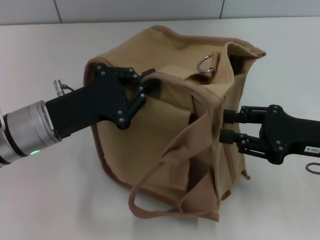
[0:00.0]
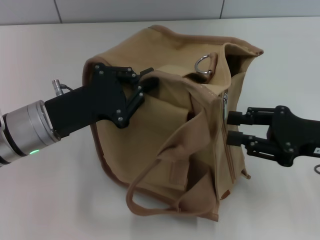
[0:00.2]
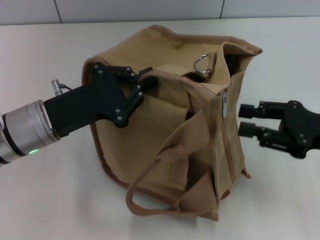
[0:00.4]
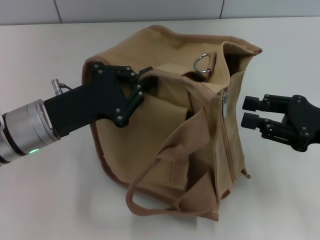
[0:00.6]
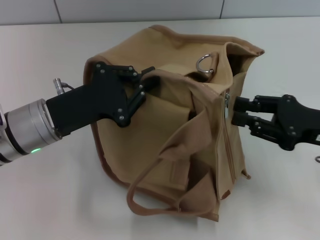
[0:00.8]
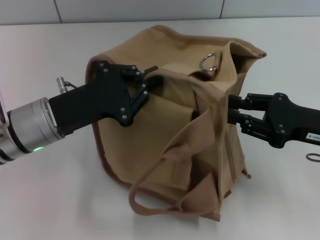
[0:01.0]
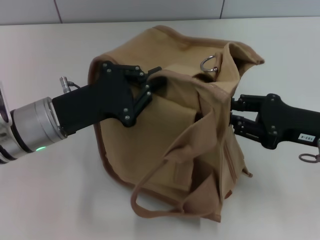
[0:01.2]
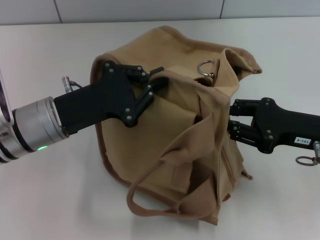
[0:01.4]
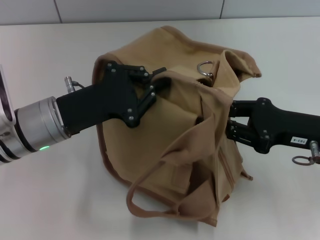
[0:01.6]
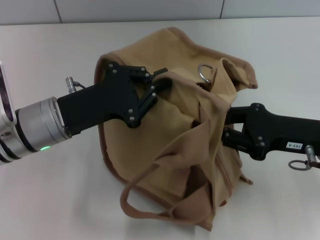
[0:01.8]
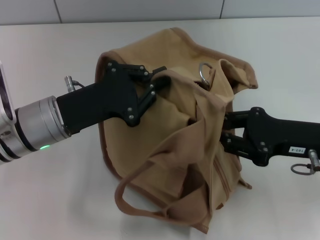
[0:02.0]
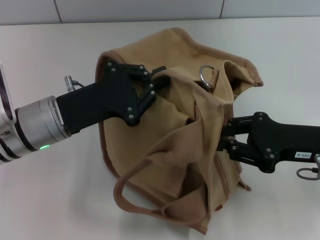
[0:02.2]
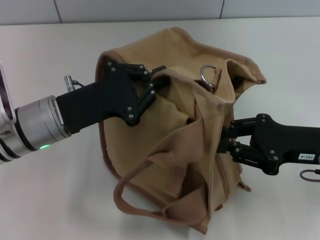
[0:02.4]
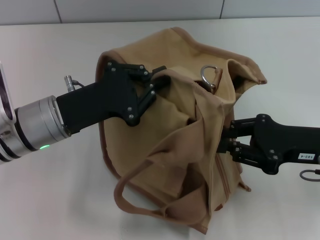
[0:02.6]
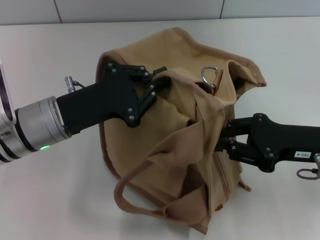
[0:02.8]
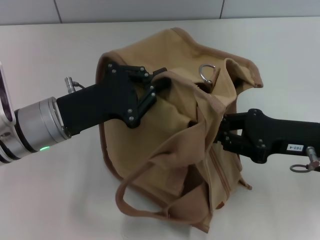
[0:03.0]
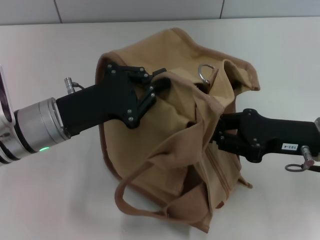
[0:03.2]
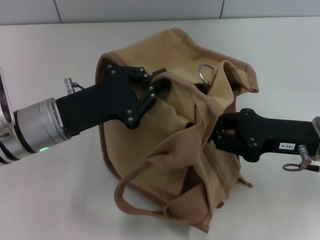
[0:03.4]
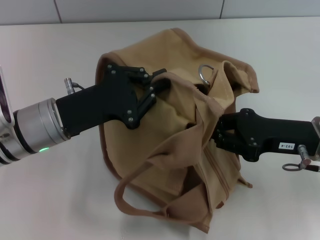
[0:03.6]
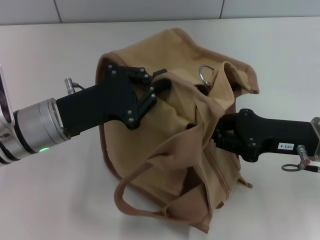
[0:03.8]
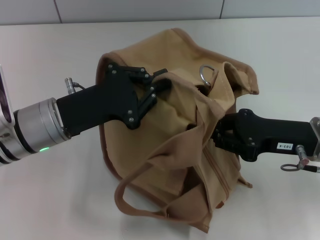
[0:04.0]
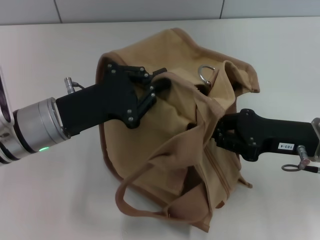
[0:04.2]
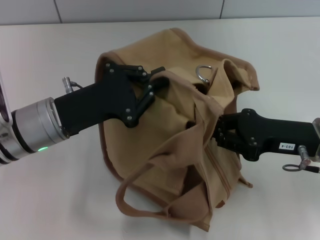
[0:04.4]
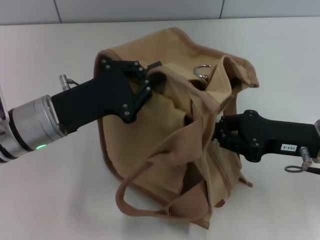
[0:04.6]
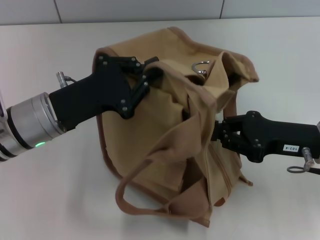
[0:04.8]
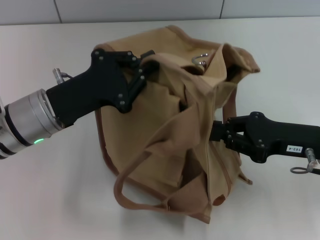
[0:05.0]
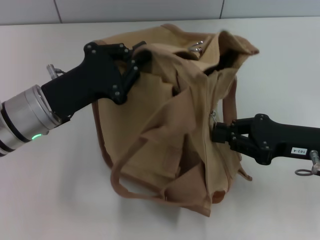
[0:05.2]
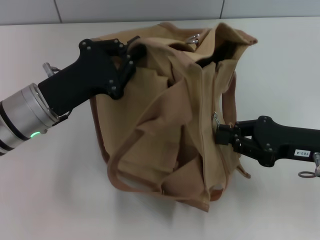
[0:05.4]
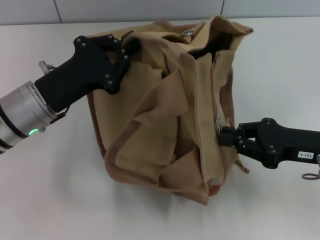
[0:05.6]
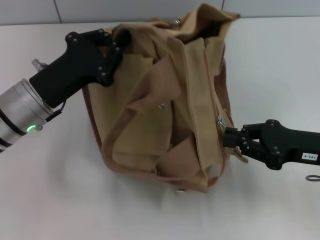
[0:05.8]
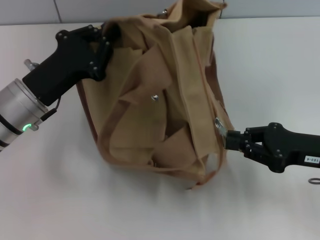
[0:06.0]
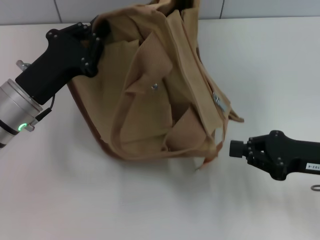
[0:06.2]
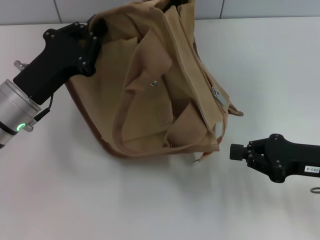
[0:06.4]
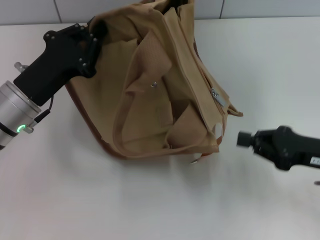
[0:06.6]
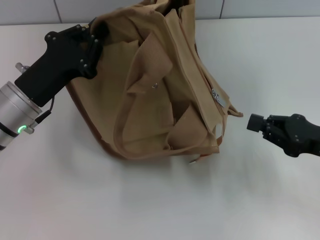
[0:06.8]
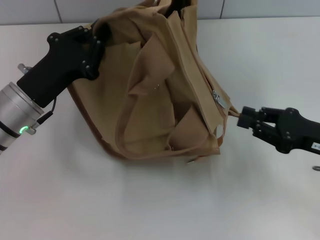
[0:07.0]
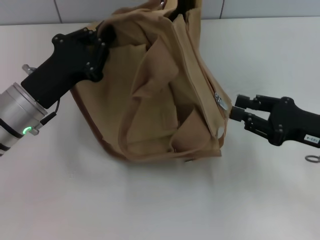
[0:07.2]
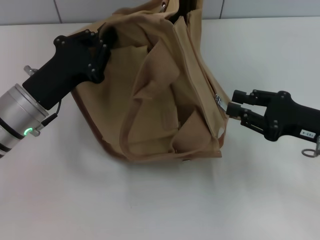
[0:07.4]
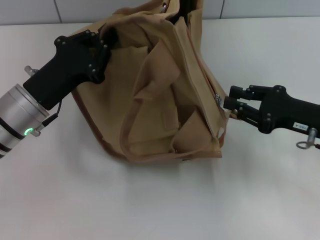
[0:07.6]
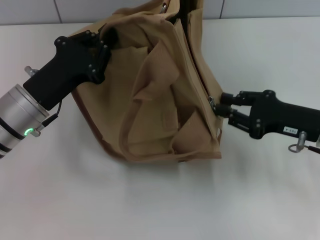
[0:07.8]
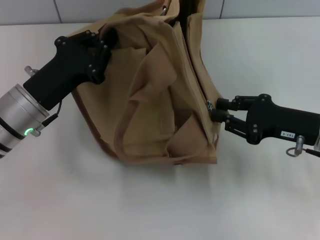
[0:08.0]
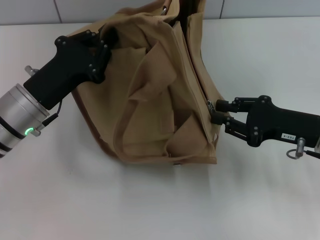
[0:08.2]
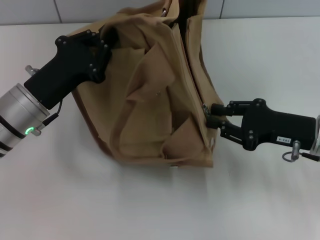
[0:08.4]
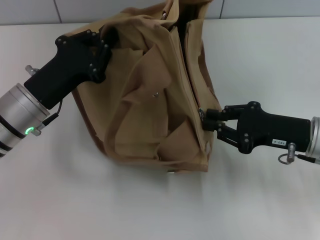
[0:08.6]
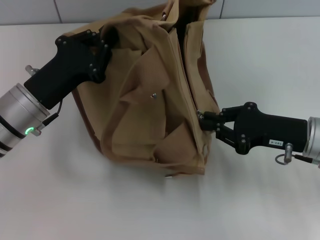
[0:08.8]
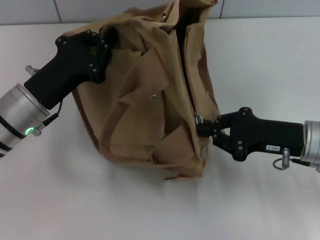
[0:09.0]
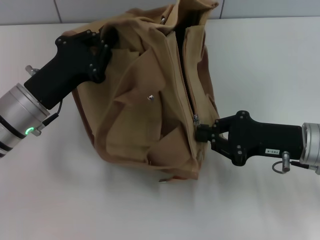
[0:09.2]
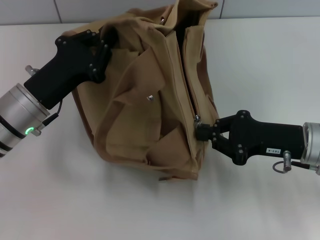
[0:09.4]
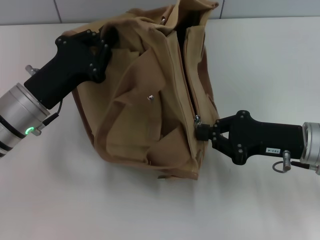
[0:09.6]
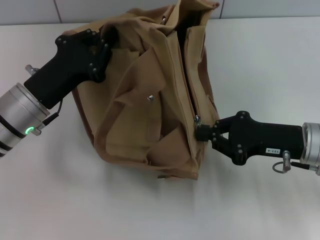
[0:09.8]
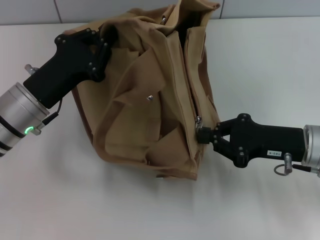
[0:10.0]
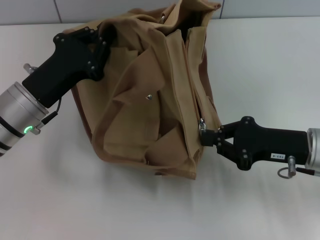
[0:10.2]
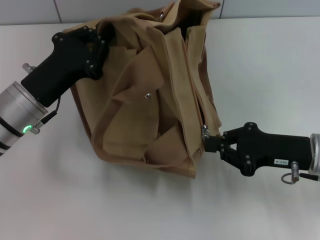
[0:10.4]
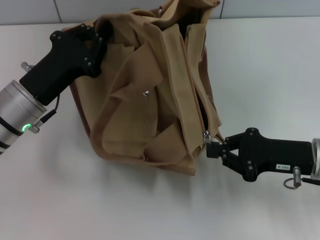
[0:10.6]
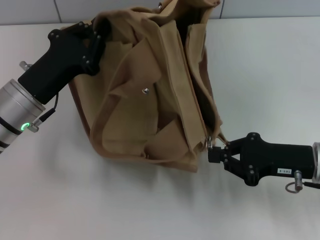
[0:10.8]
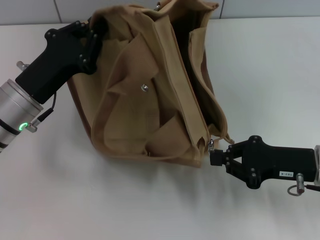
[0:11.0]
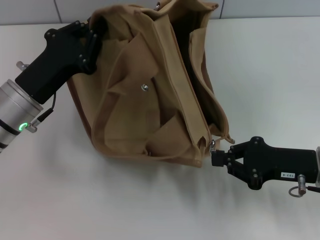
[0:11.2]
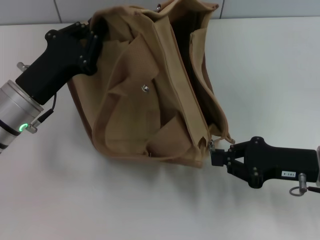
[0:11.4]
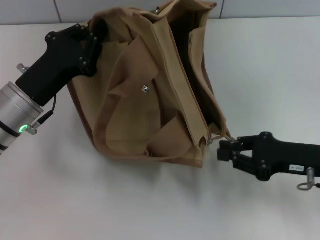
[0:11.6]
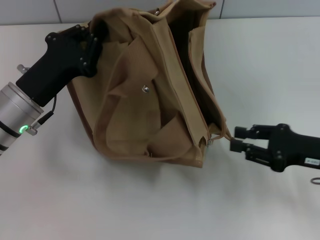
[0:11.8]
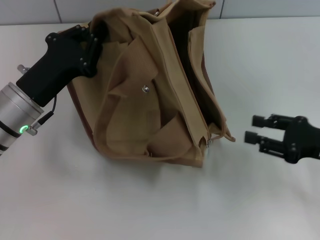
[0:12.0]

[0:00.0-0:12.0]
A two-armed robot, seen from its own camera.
Step, 0:00.0 to 0:11.6: Pull open the zipper with your right hand.
0:00.0 to 0:03.0: There are only small adjustments of the grippers.
0:03.0 to 0:04.4: The two grippers keep their place.
0:09.0 to 0:10.4: There are only small adjustments of the grippers.
0:10.4 to 0:12.0: The right gripper moves to the right, about 5 cm, and opens up.

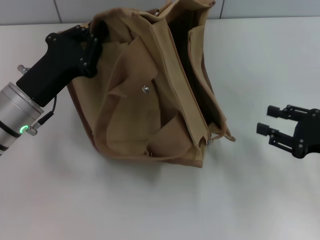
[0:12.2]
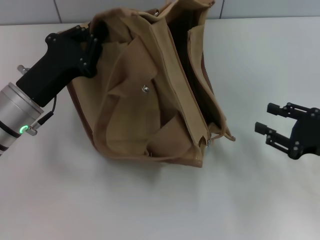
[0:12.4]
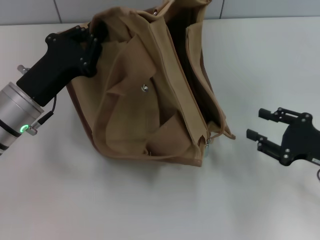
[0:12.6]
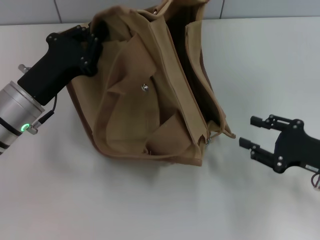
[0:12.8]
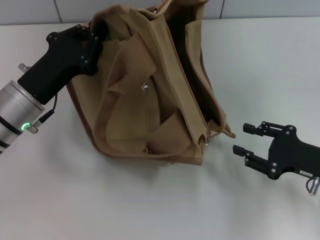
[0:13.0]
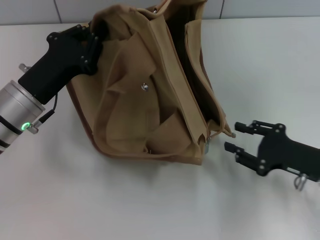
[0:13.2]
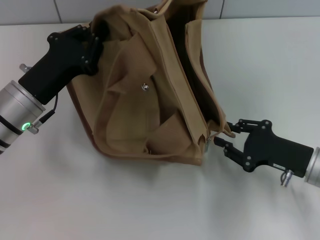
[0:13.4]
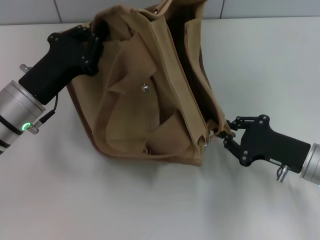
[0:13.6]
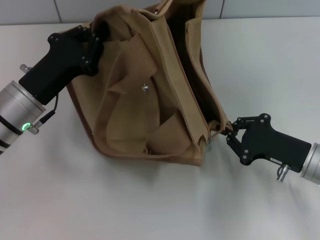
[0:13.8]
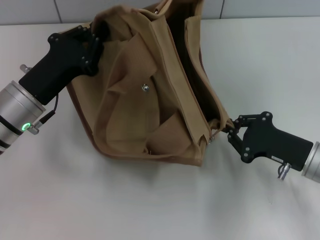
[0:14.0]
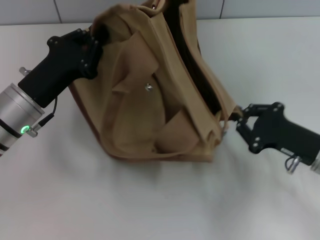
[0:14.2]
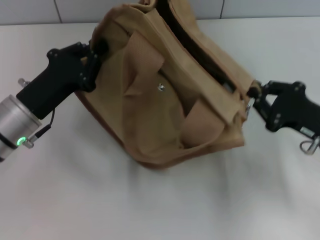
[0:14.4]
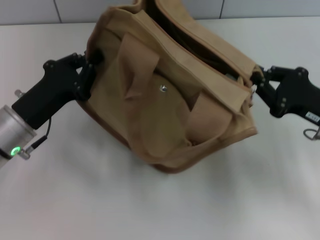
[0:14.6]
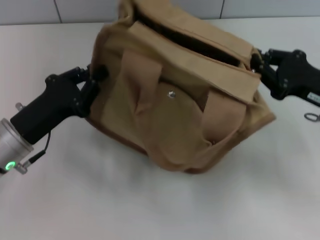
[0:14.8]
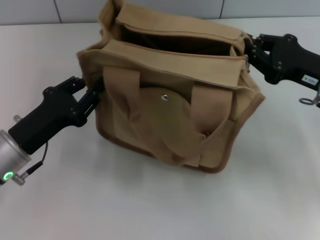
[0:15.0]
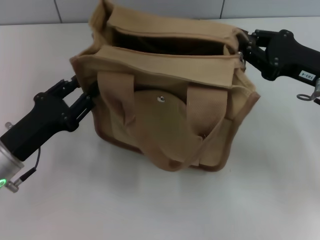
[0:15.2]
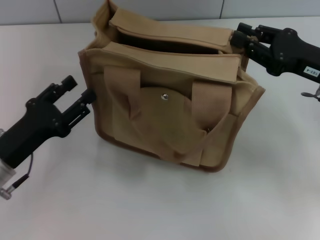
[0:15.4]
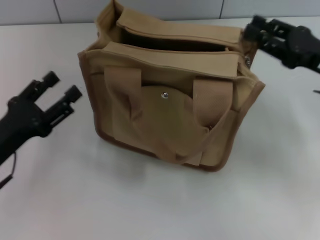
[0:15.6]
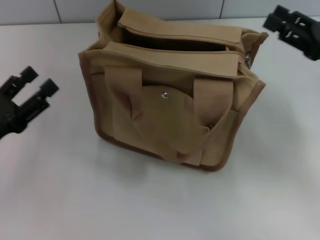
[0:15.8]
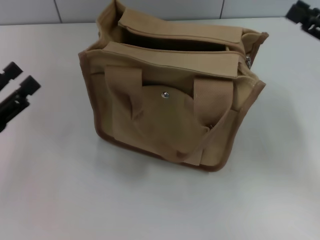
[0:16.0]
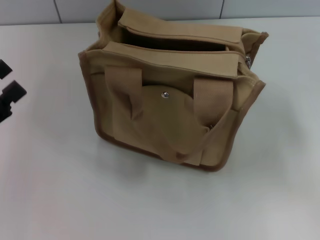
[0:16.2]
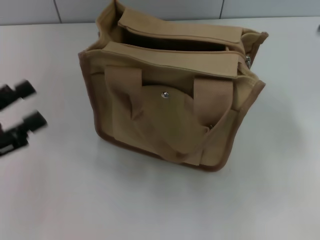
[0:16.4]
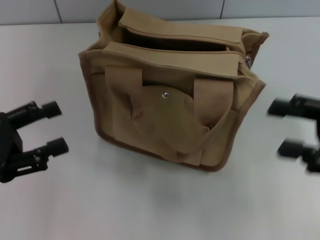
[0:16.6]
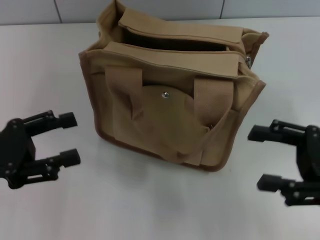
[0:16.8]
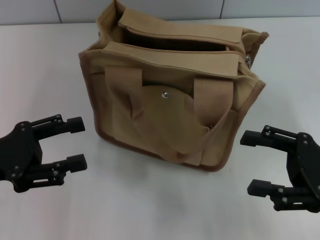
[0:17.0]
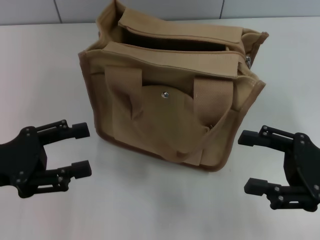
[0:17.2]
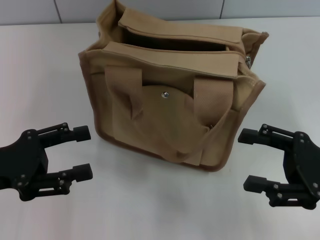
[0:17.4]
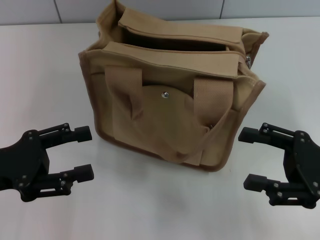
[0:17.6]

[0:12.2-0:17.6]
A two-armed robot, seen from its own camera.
Step, 0:12.2 to 0:15.4: Grab the bag with your left hand.
0:12.2 to 0:13.6: The right gripper moves to the left, roughly 5 cm.
0:13.6 to 0:15.0: The right gripper travels upward and forward by roughly 10 cm, and closes, while the left gripper is displaced backward by approximately 5 cm.
0:15.0 to 0:16.2: The left gripper heads to the left, covering roughly 10 cm, and opens. The right gripper goes approximately 5 cm to the right, and opens its fingers.
0:16.2 to 0:17.6: The right gripper travels backward, to the left and downward by about 10 cm.

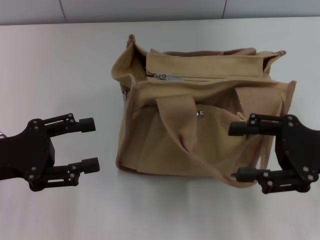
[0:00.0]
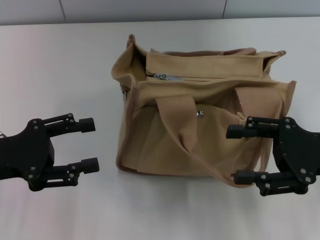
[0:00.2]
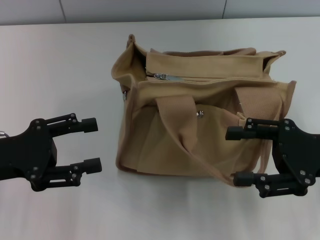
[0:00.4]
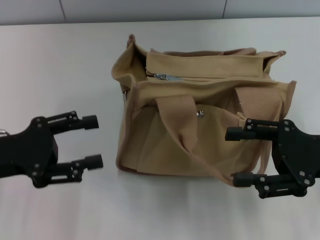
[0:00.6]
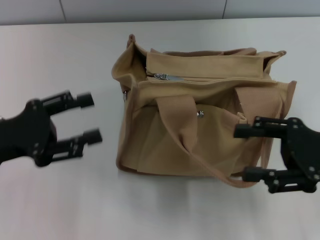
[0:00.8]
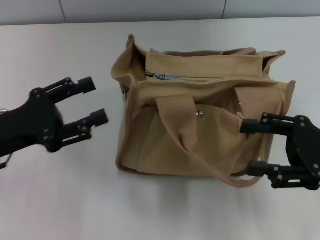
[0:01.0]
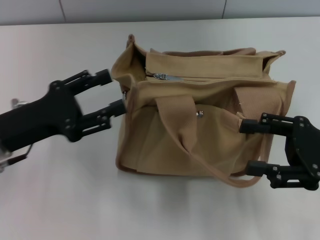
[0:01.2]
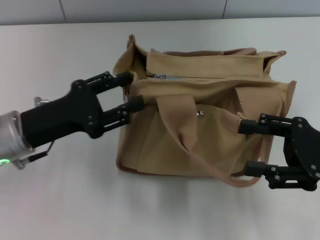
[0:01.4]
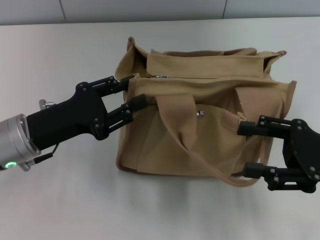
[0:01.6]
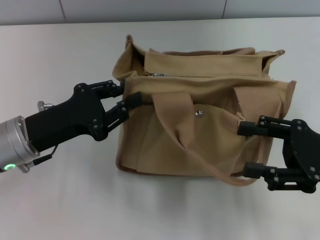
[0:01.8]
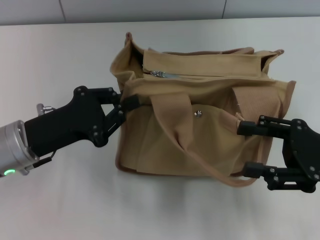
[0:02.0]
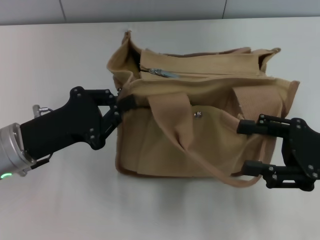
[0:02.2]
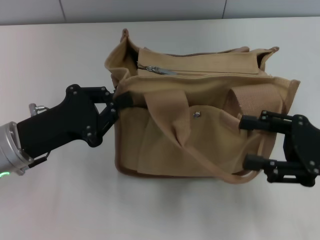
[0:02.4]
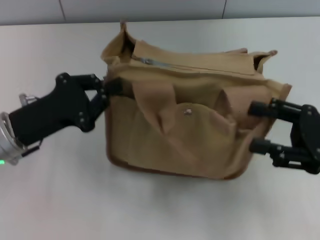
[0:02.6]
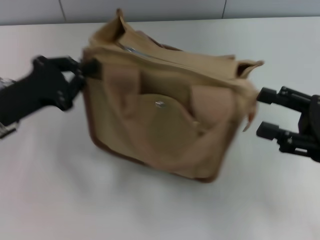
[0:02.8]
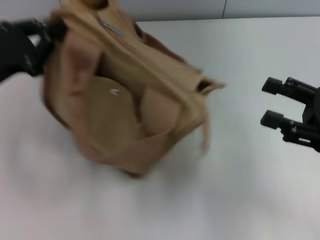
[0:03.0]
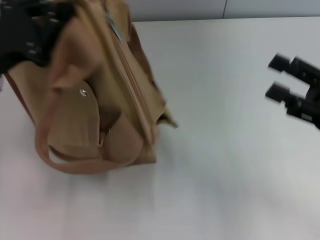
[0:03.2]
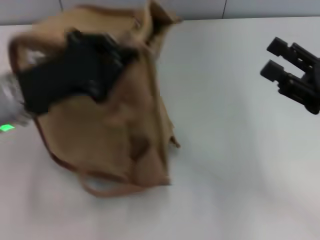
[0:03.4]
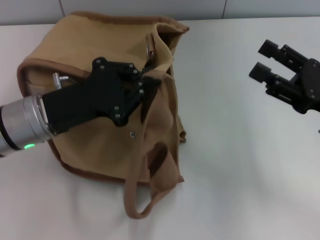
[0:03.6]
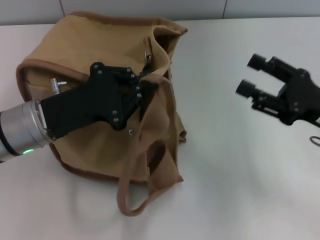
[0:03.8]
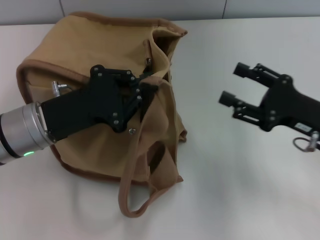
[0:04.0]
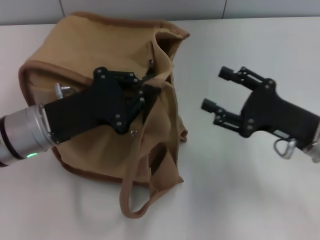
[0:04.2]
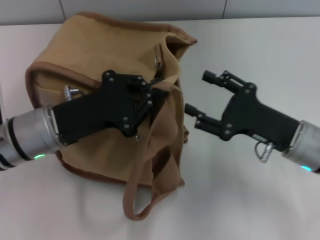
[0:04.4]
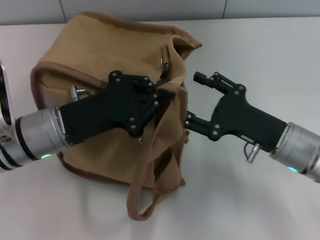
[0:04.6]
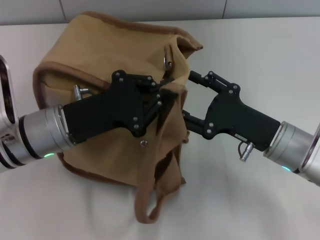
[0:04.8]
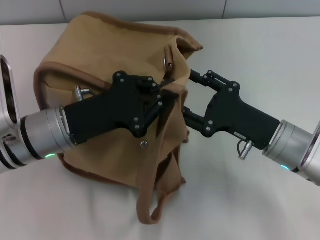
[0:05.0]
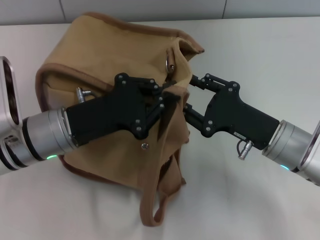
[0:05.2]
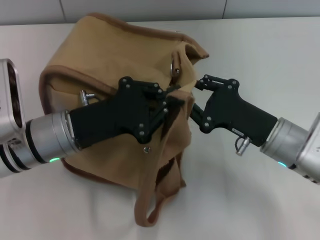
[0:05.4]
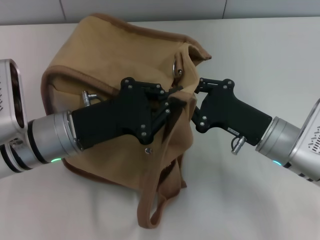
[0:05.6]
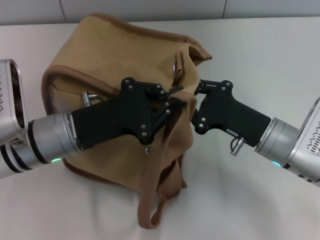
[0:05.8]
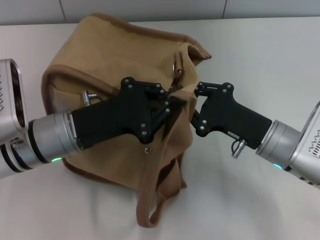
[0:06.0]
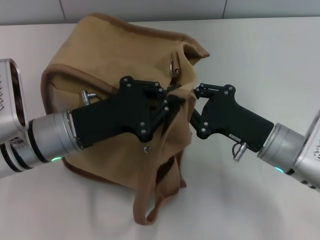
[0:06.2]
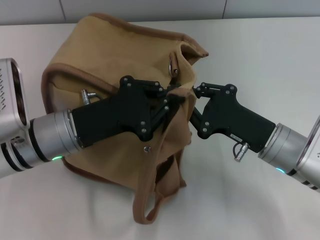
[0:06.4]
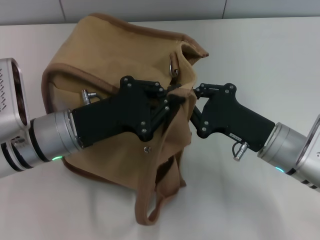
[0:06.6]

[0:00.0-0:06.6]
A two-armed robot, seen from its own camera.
0:00.0 to 0:01.6: The left gripper travels to the right by about 5 cm.
0:01.6 to 0:03.2: The left gripper moves upward, some 5 cm, and closes up.
0:03.2 to 0:05.0: The left gripper heads to the right and downward, covering approximately 10 cm. The right gripper is displaced to the left and downward by about 15 cm.
0:05.0 to 0:06.6: The right gripper closes up.
